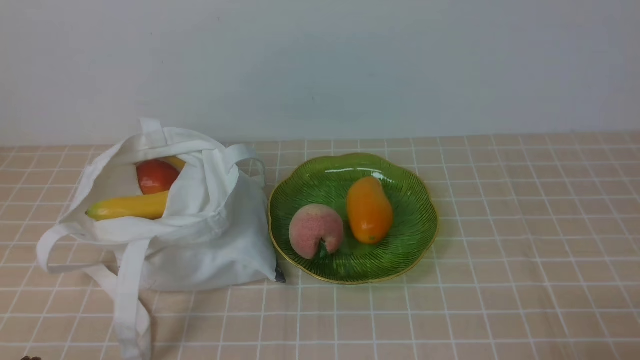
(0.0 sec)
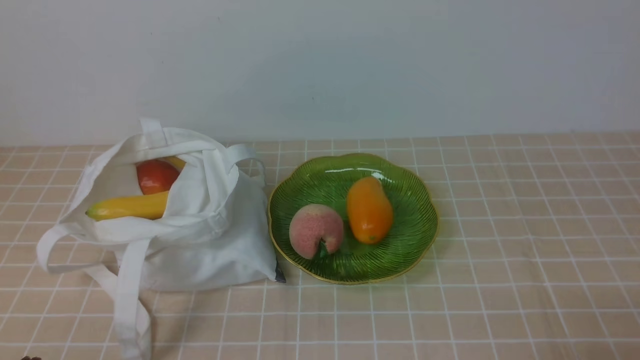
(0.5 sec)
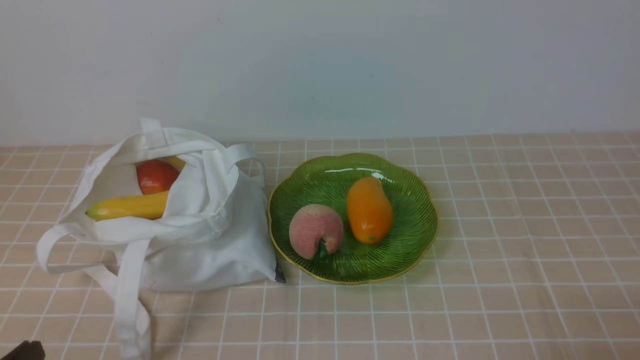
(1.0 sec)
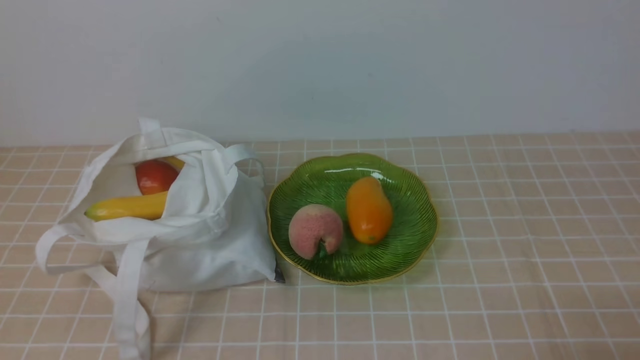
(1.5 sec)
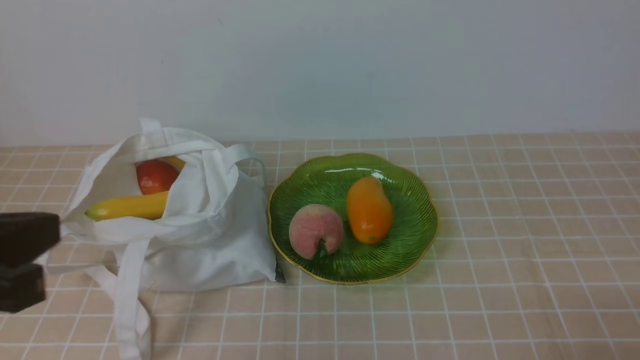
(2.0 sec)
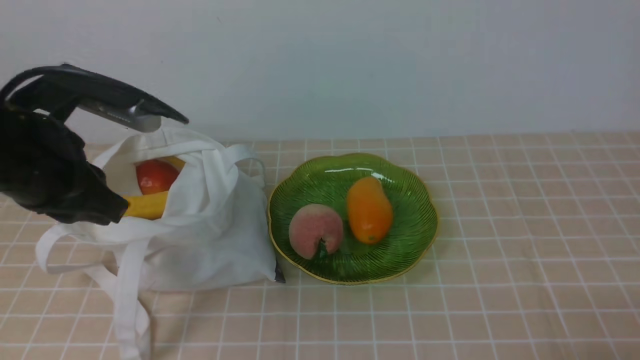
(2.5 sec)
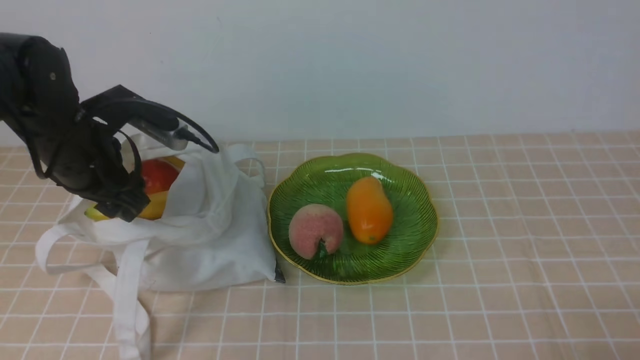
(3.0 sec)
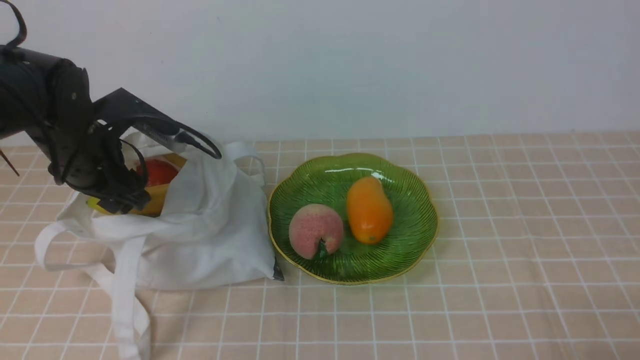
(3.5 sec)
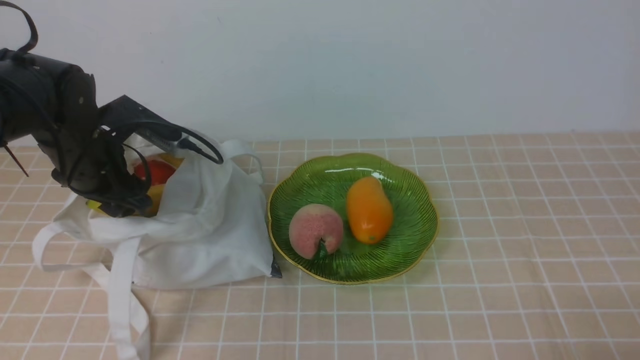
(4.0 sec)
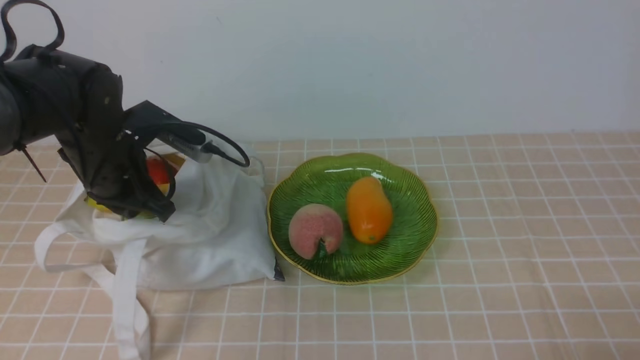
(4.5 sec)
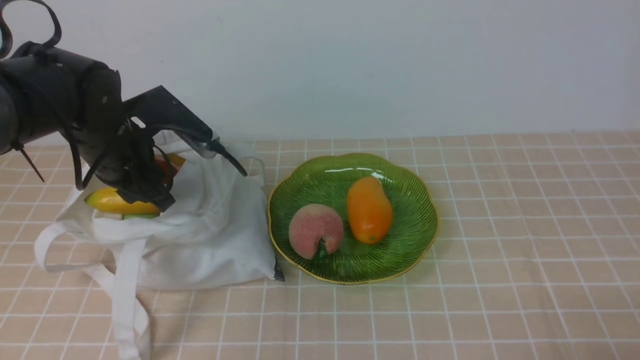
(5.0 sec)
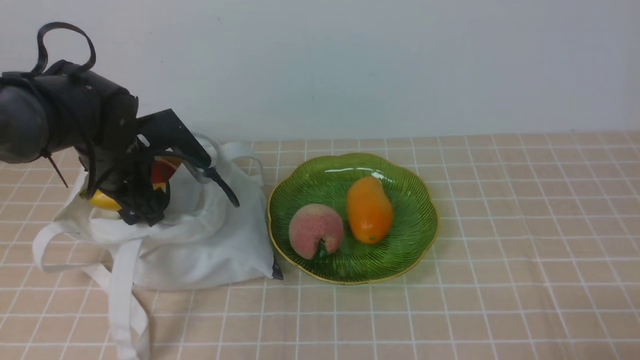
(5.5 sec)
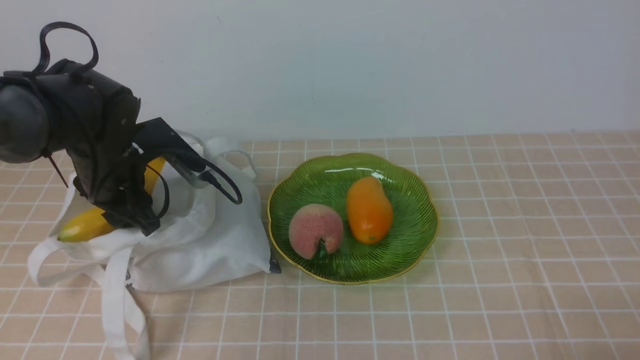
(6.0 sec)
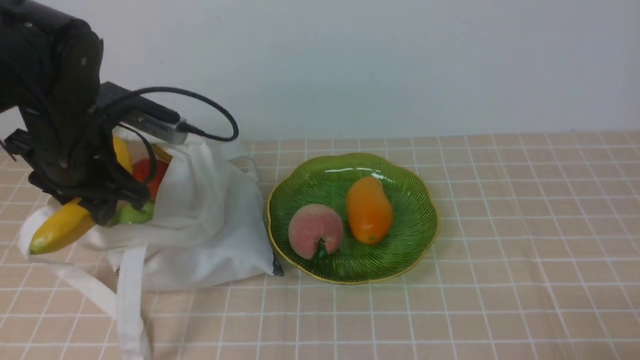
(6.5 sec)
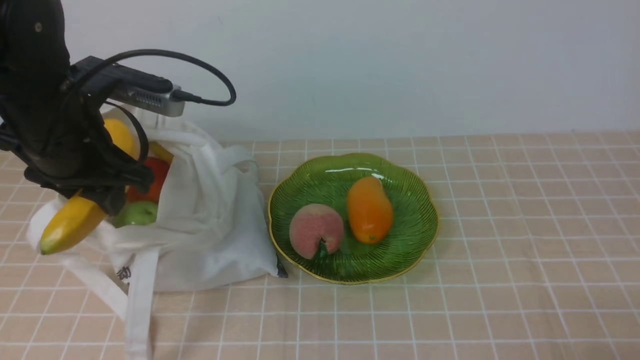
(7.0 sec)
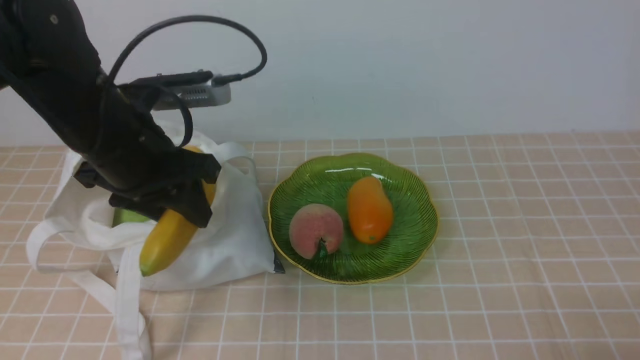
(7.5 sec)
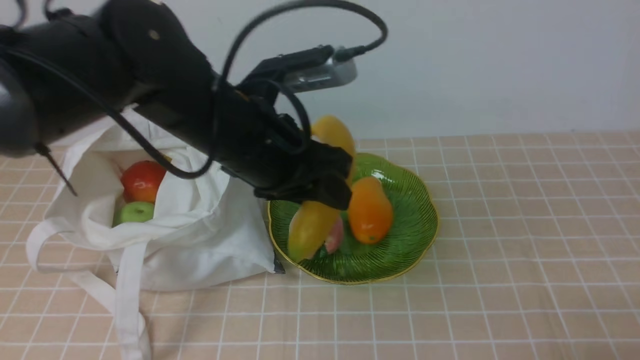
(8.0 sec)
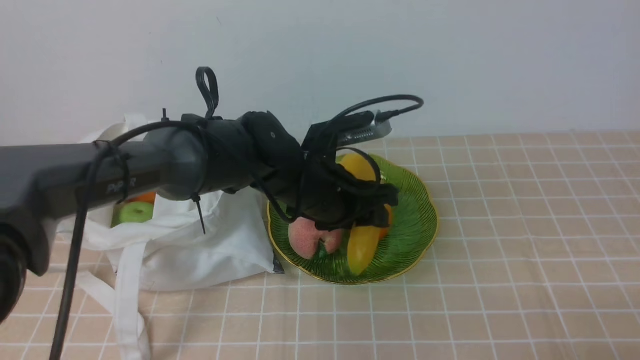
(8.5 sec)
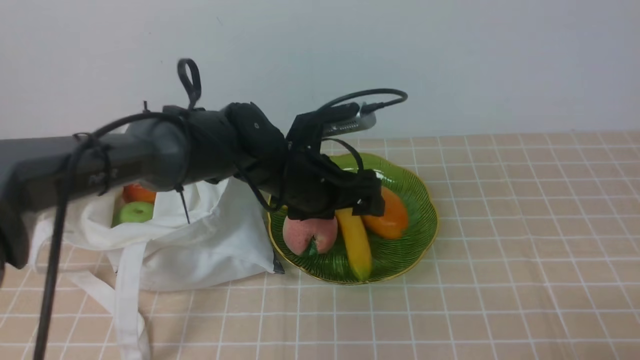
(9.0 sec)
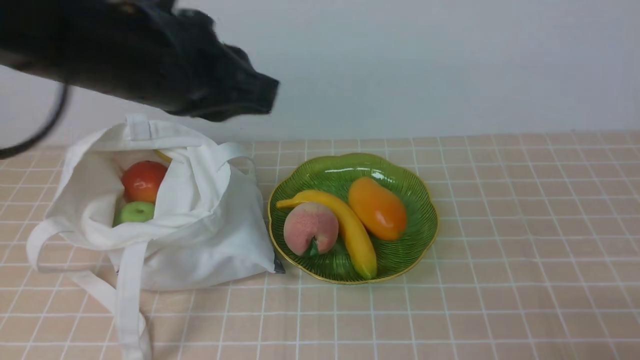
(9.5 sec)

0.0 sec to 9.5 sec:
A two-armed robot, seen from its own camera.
Step, 0.0 sec to 6.5 sec: use the left arm to grab a banana from the bag.
Step, 7.0 sec to 8.5 sec: use the left arm to put the banana into the empty plate on the right.
0.0 sec to 2.0 sec: The left gripper travels upward by approximately 20 cm.
2.0 sec to 4.0 sec: The left gripper shifts some 30 cm forward and downward, and opens.
4.0 sec to 5.5 sec: The left gripper opens.
5.5 sec to 7.5 sec: The left gripper heads upward, backward and to the right, covering approximately 15 cm, and closes up.
7.5 sec to 9.5 sec: The left gripper is displaced upward and backward by approximately 10 cm, and closes.

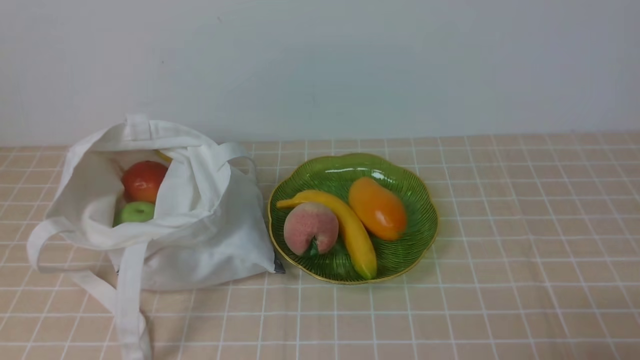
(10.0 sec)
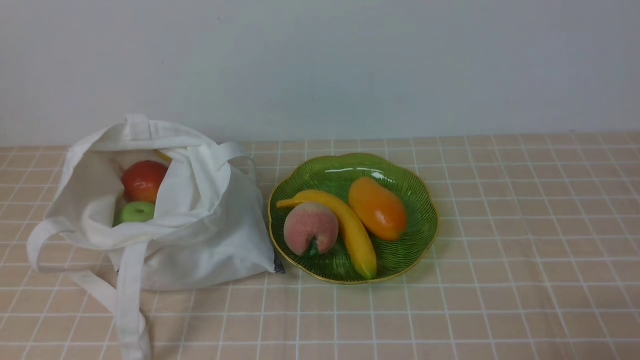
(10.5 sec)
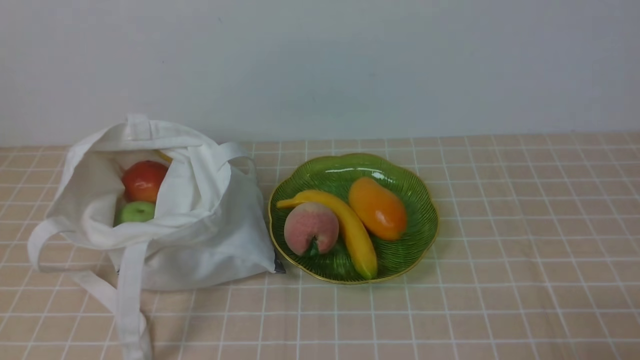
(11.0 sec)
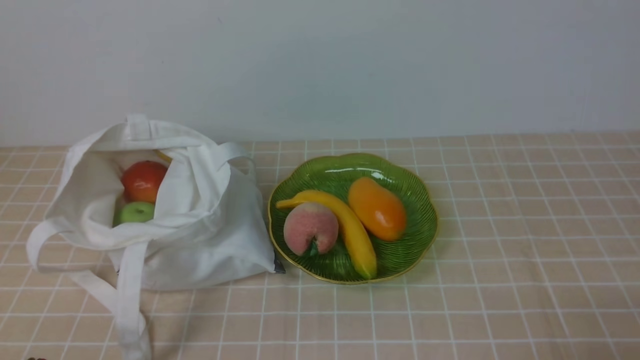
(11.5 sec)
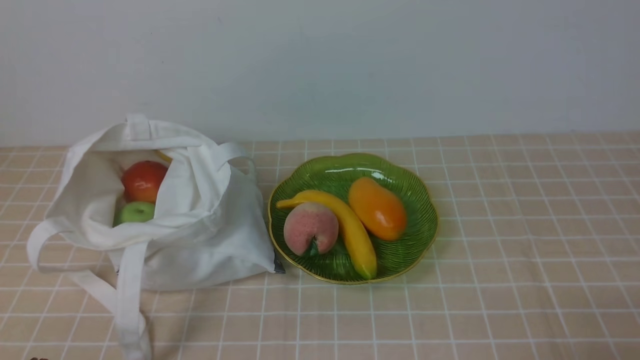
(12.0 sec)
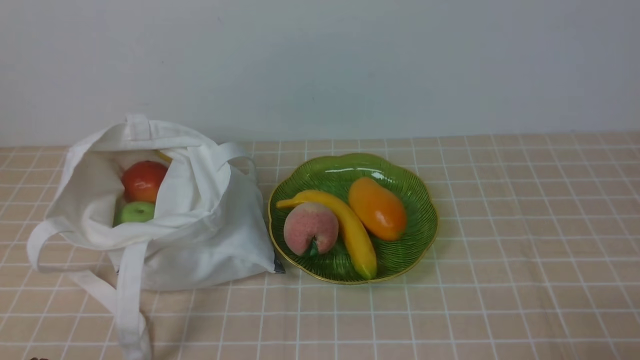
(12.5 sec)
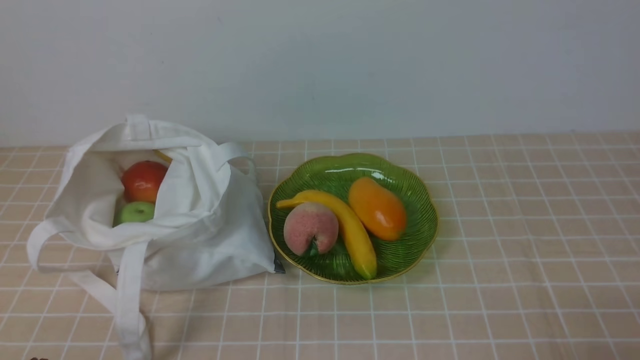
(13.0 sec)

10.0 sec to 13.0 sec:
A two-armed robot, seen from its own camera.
11.5 sec to 13.0 sec: The two grippers keep their place.

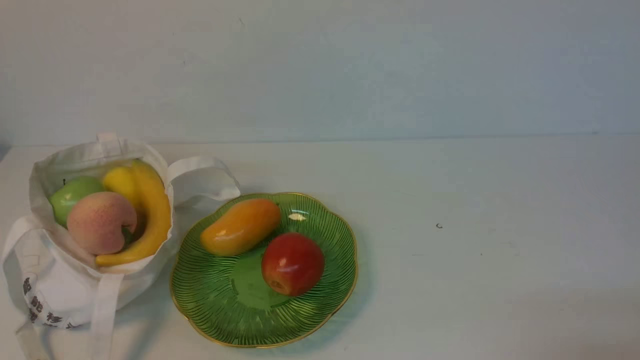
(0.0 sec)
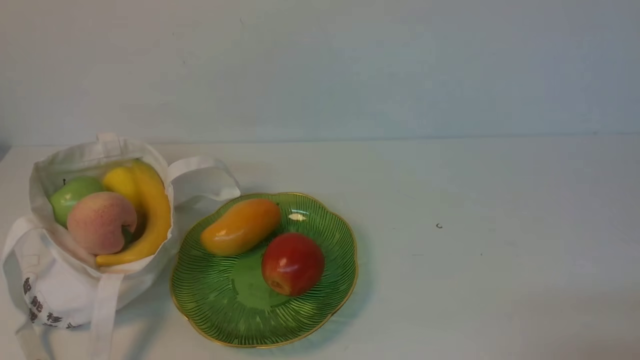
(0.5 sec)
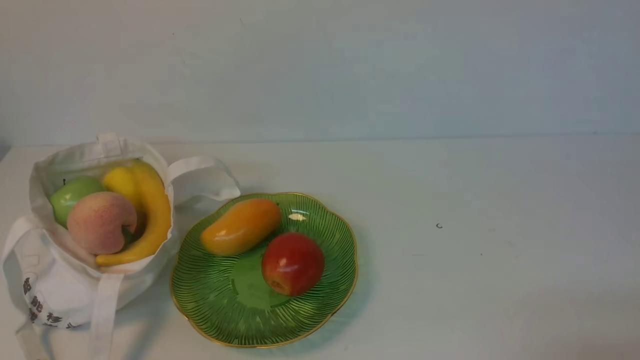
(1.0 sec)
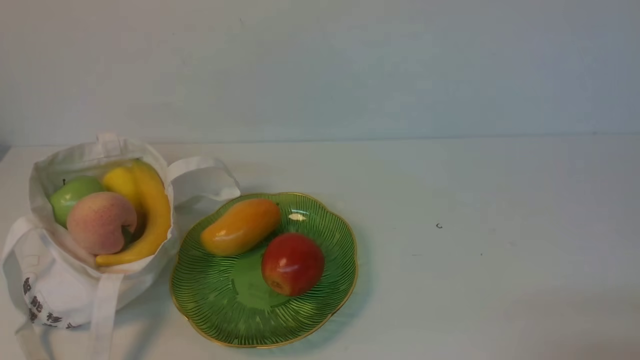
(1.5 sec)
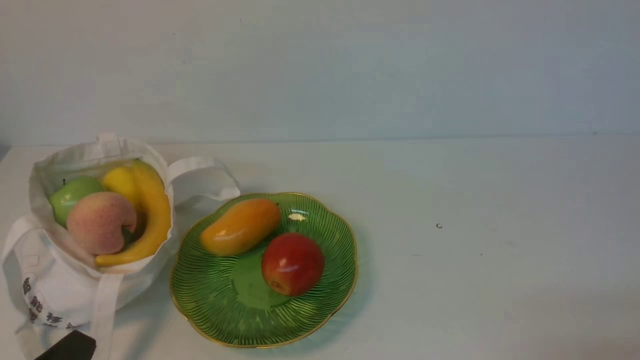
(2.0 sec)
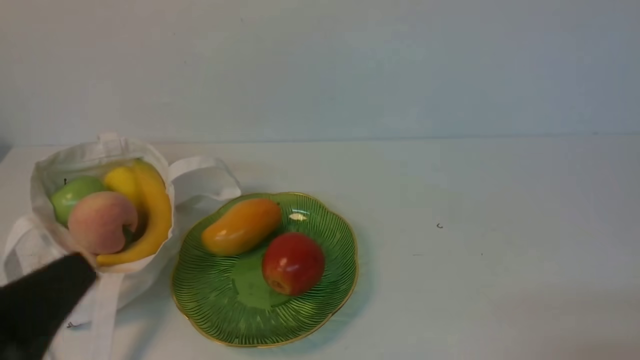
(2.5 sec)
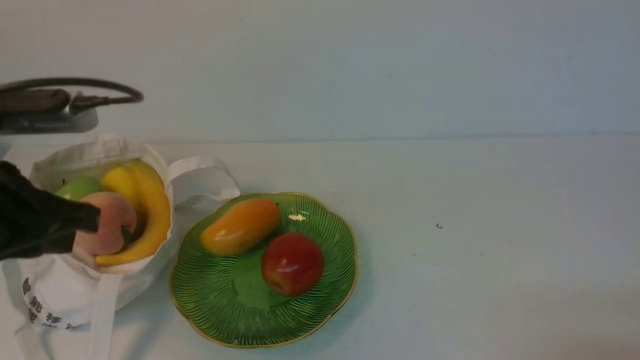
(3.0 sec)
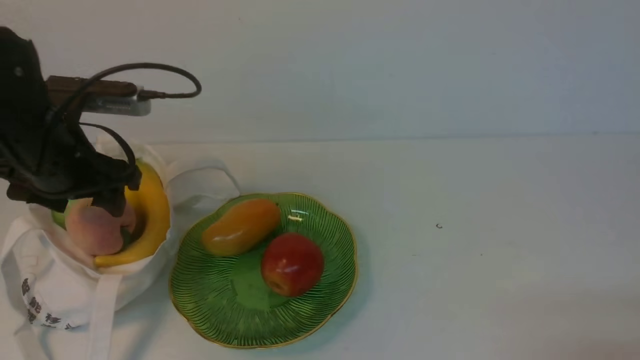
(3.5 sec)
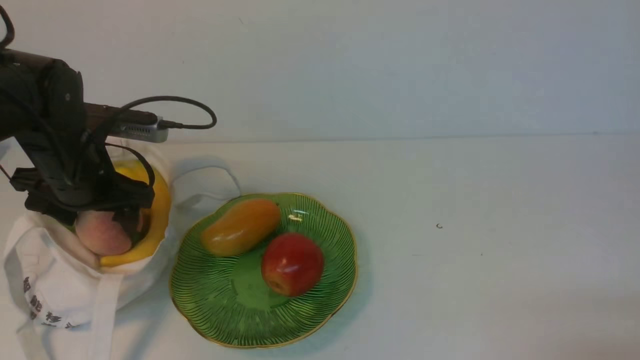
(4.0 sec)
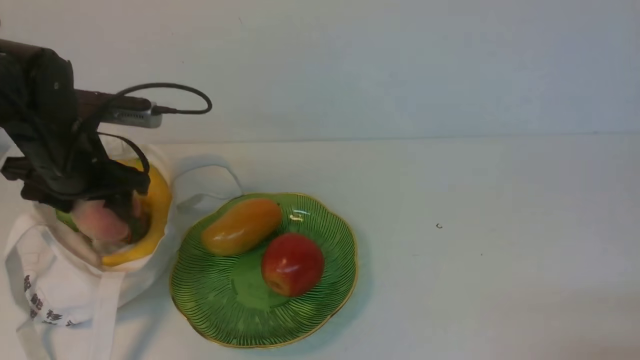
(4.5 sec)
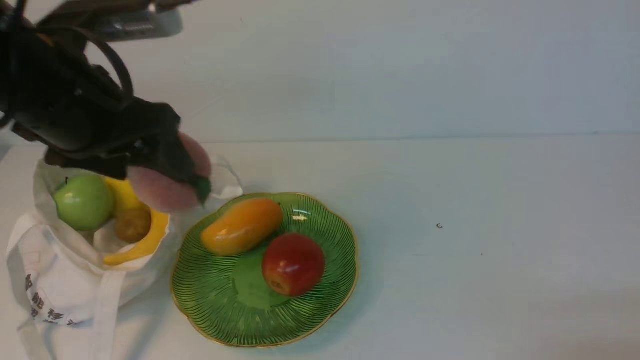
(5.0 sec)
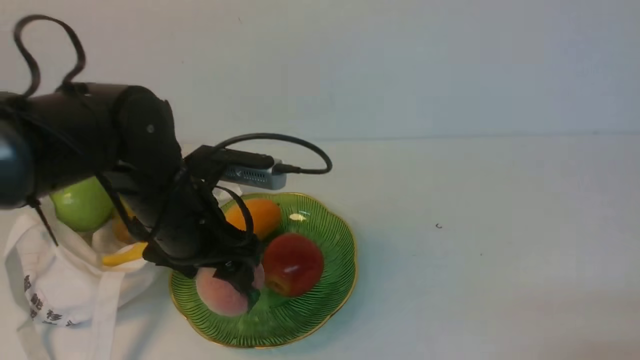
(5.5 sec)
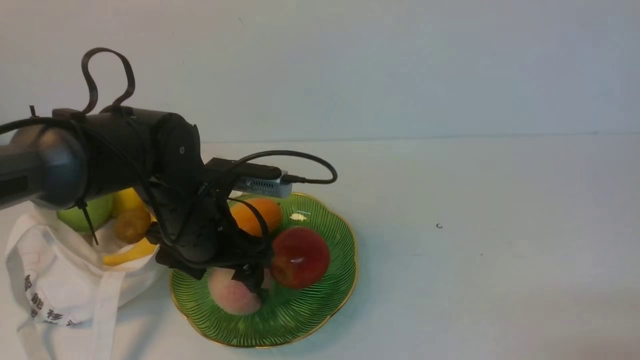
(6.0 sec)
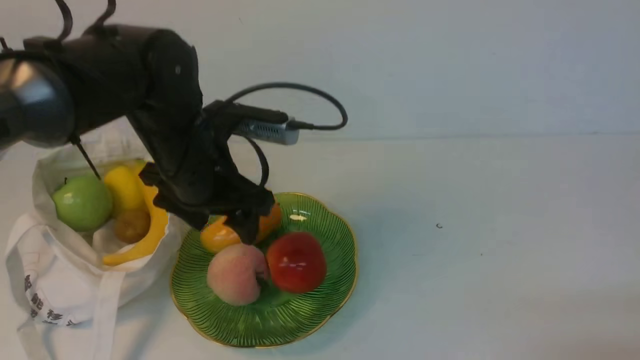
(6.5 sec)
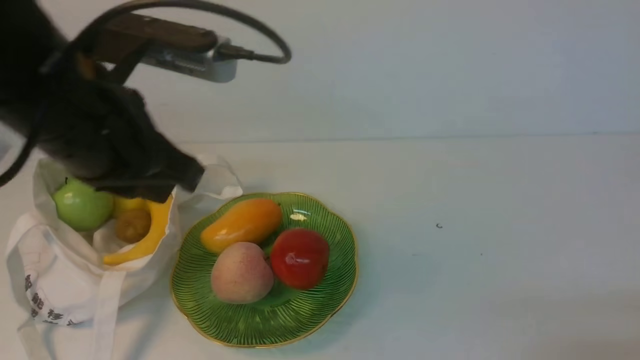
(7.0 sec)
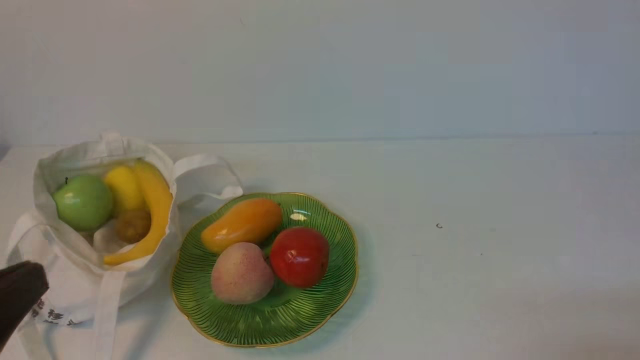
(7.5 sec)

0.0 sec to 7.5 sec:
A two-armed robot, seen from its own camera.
Step, 0.0 sec to 4.0 sec: use the left arm to grab a peach from the bag.
Step, 4.5 sec to 6.0 sec: use the left arm to put the peach into the empty plate on the right.
2.0 sec to 4.0 sec: The left gripper travels forward by approximately 30 cm, and opens.
4.0 sec to 5.5 sec: The left gripper travels to the right and backward by about 15 cm.
5.5 sec to 7.5 sec: The left gripper moves backward and to the left, roughly 20 cm, and closes up.
